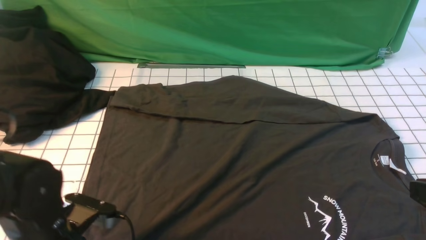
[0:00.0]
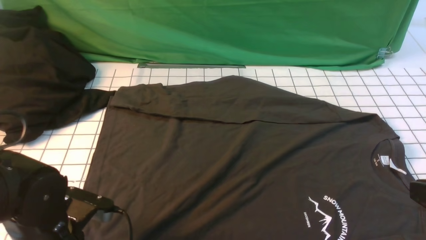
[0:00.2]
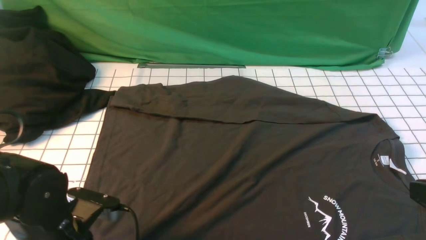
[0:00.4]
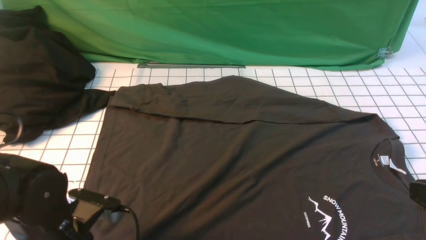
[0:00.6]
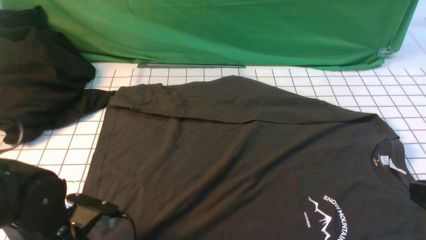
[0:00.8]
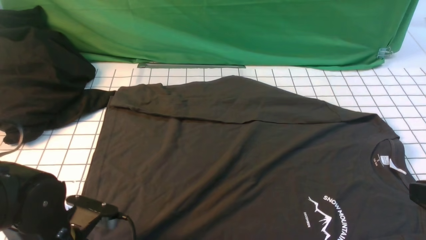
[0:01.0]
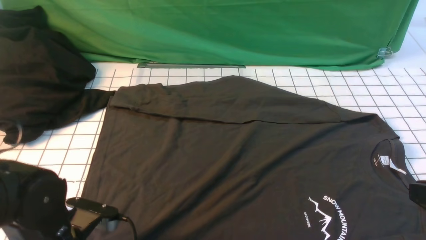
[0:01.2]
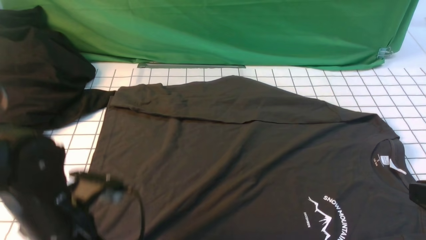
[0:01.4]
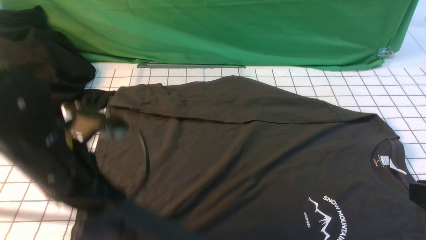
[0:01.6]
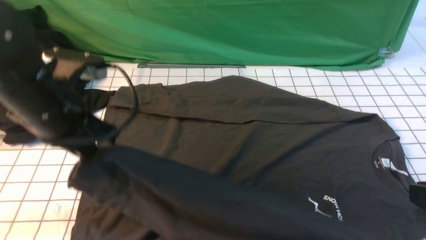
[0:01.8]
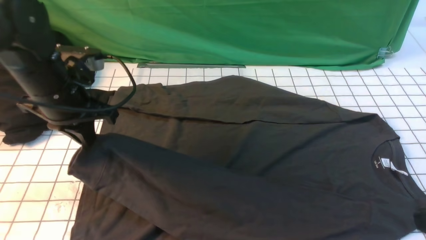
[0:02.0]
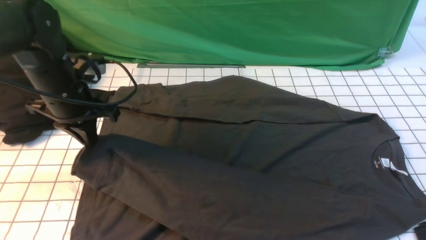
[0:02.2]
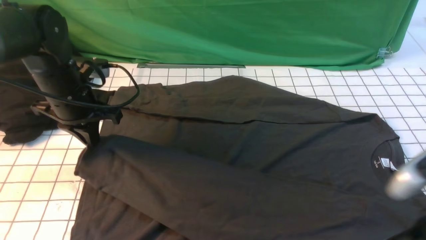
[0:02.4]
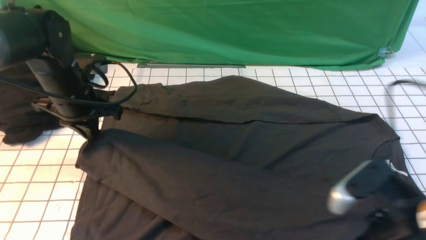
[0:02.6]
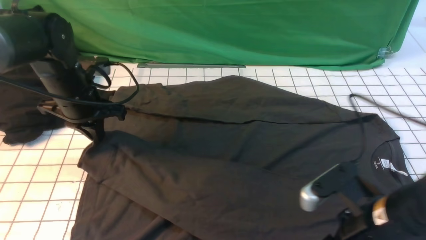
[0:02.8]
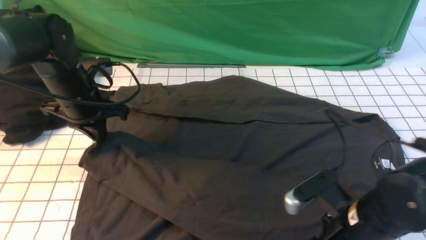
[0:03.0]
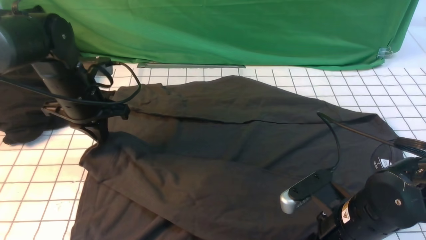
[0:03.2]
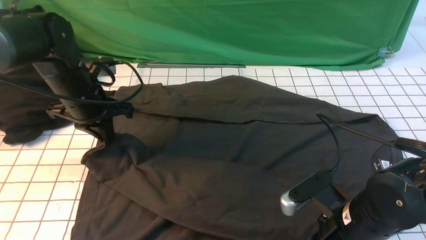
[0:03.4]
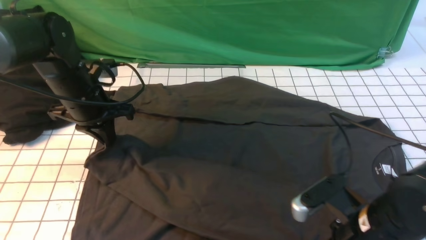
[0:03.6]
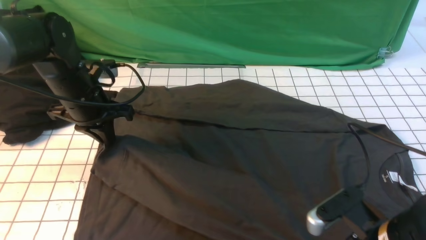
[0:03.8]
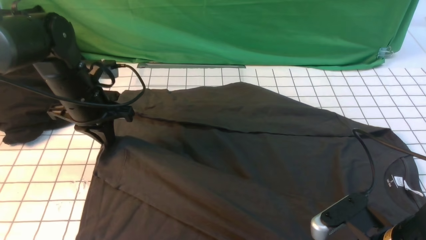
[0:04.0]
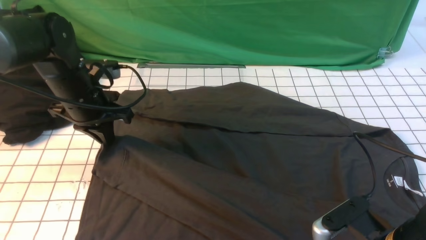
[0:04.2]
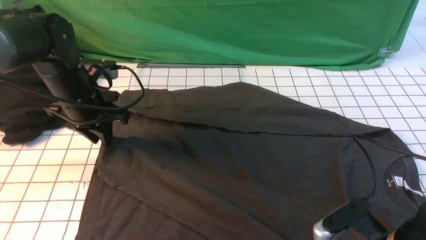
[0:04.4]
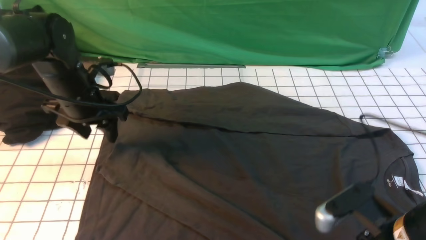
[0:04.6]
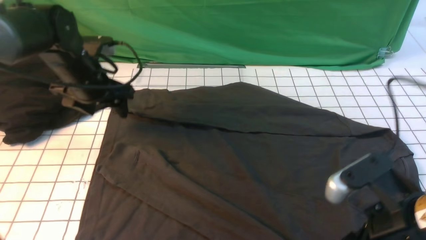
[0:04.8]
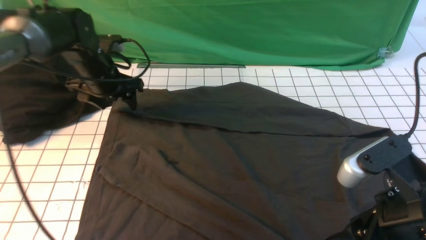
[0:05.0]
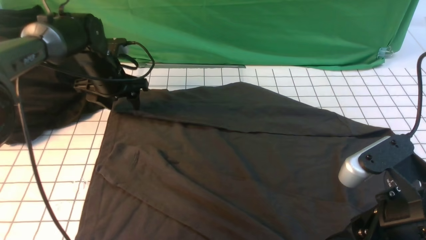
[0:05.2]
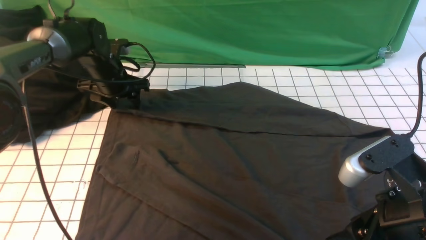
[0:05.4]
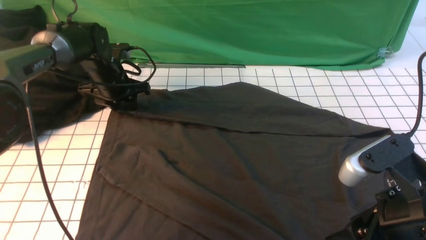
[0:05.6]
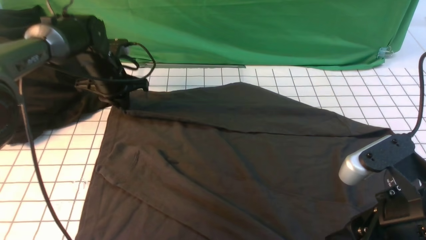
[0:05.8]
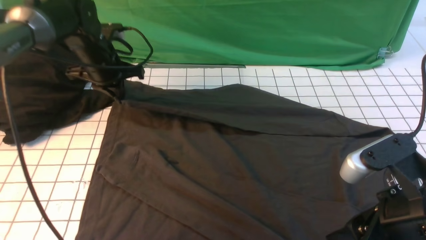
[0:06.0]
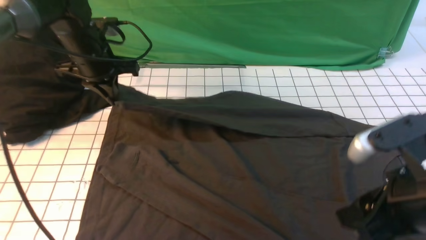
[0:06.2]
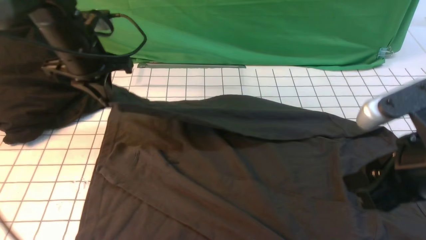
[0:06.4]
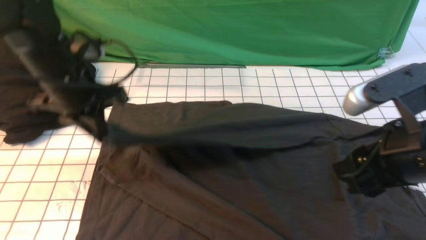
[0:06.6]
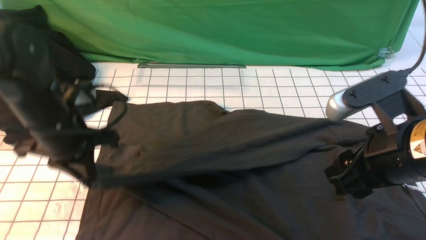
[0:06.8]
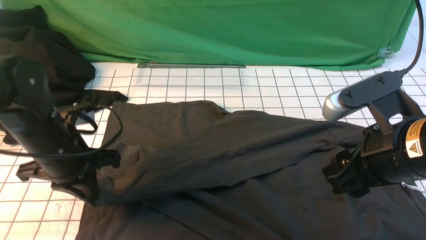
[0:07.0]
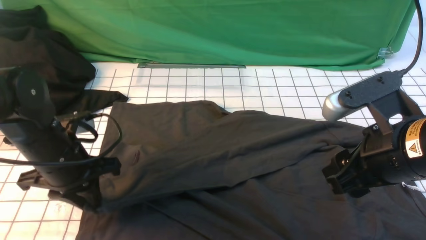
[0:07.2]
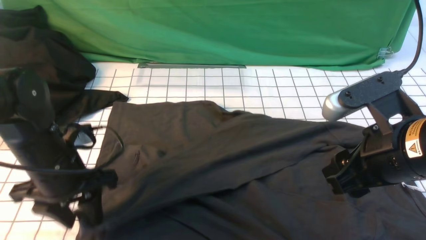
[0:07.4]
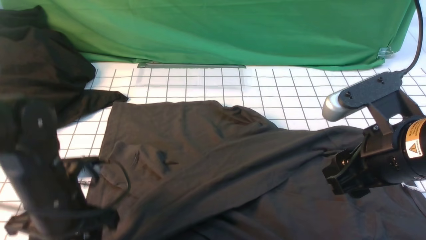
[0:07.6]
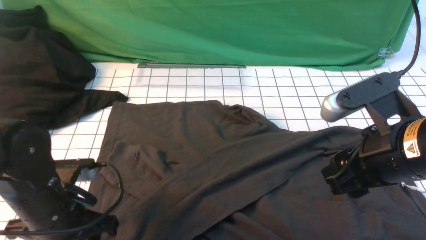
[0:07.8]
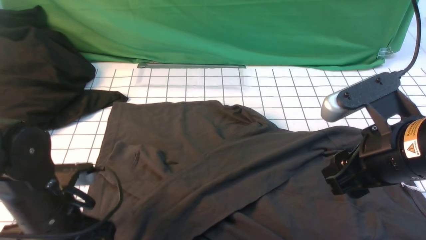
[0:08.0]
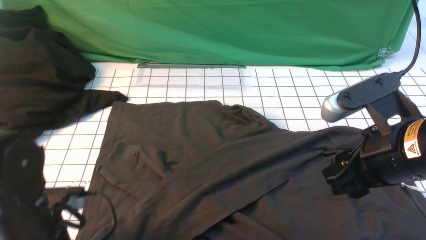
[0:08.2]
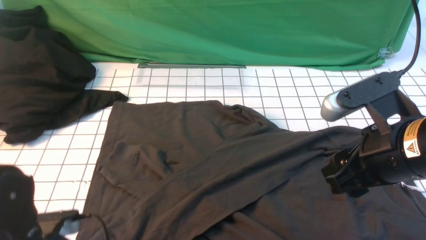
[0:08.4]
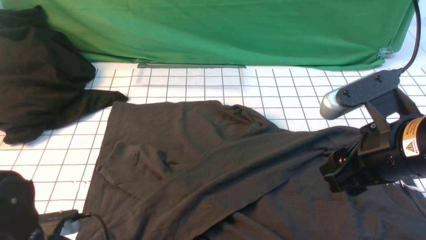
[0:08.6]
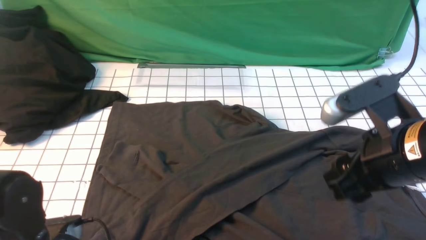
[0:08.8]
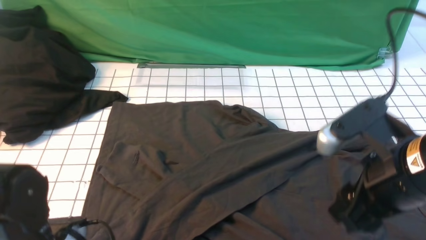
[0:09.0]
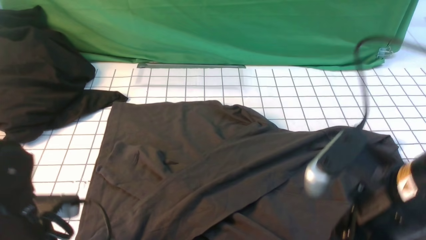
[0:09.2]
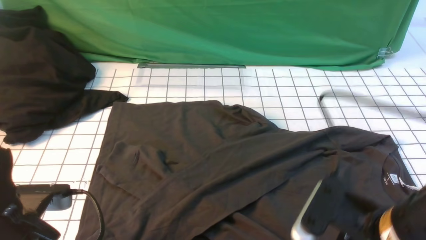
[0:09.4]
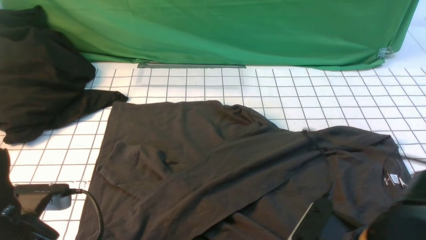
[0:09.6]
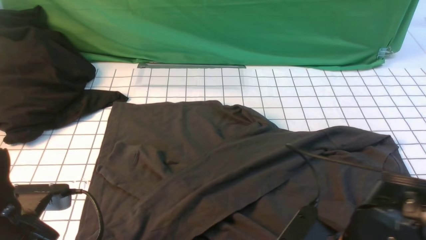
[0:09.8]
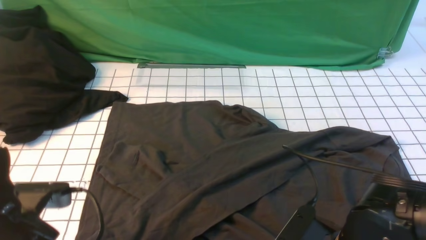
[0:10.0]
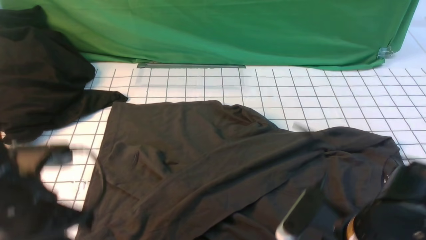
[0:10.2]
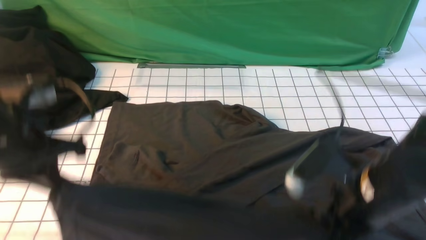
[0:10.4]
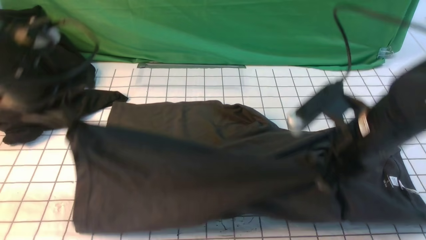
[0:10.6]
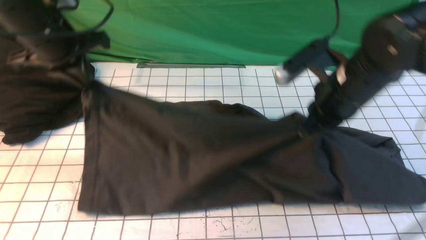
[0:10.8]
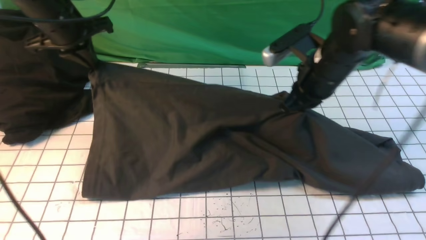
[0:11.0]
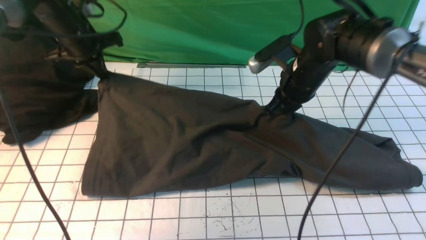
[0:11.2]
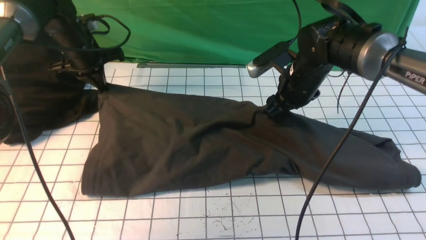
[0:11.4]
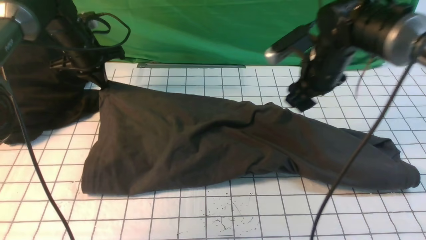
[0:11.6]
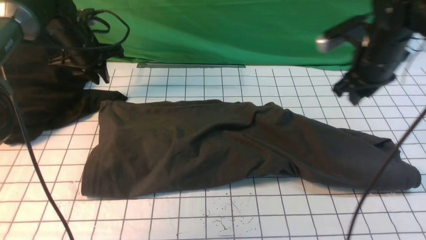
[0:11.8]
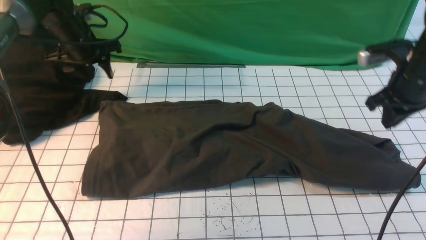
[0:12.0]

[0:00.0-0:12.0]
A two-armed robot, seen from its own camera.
Step, 1.6 to 4.4 s: use the left arm to drag and place the cuff at the centered position on the left edge of the fabric.
Step, 4.6 to 5.6 s: use the left arm to clamp the cuff farthest from it.
Step, 5.8 to 7.8 s: use the left arm to drag and drop the cuff onto the cuff closest to the left arm.
Step, 8.2 to 10.0 s: use both arms simultaneously to clamp the lower edge of the clothing fabric.
Step, 10.4 to 11.6 s: use both arms to drag the lower edge of the fabric forward and fold it over the upper edge.
0.0 to 1.6 s: The left gripper moves upward and forward, approximately 10 cm, and closes.
1.6 to 3.0 s: The right gripper is displaced downward, to the left and forward by roughly 15 cm, and opens. Meanwhile the left gripper heads forward, covering some 15 cm.
3.0 to 4.4 s: The left gripper opens up. The right gripper changes place by about 5 cm, and closes and opens again.
4.4 to 6.0 s: The left gripper shifts roughly 10 cm forward, and closes. The right gripper goes roughly 10 cm upward.
6.0 to 7.6 s: The left gripper goes approximately 25 cm backward, and opens; the right gripper moves forward, roughly 5 cm.
7.6 to 9.0 s: The left gripper heads backward, covering roughly 5 cm, and closes up.
9.0 to 10.4 s: The left gripper goes approximately 15 cm upward and forward. The right gripper closes up.
10.4 to 12.0 s: The right gripper shifts roughly 25 cm forward and to the right, and opens, then closes again. Meanwhile the left gripper goes some 25 cm forward, and opens.

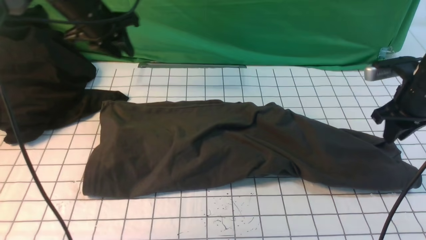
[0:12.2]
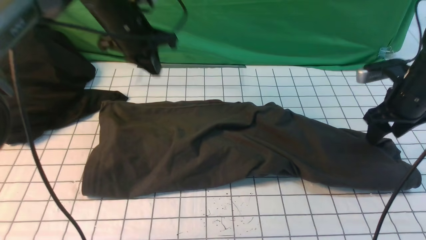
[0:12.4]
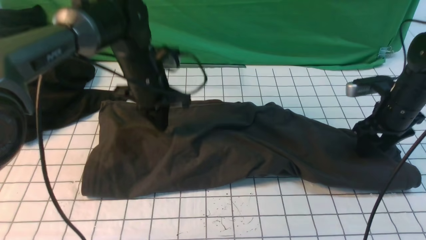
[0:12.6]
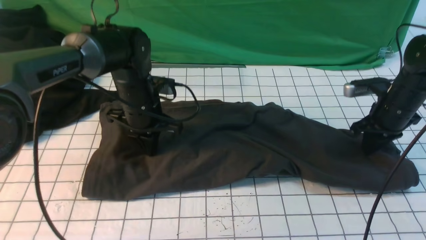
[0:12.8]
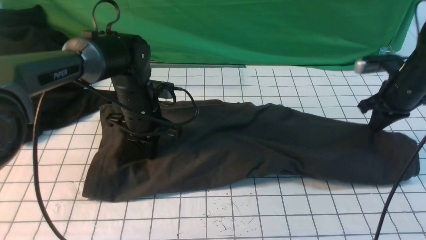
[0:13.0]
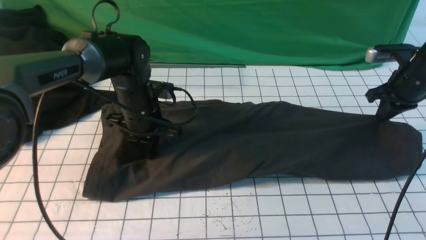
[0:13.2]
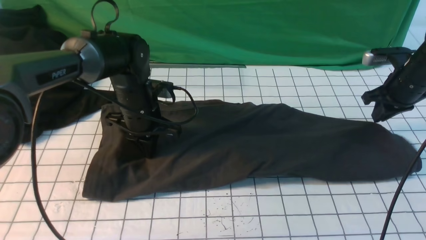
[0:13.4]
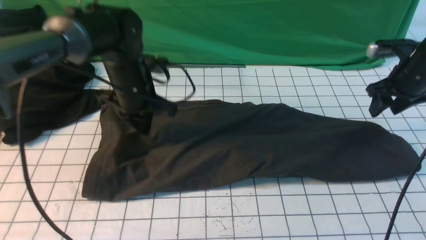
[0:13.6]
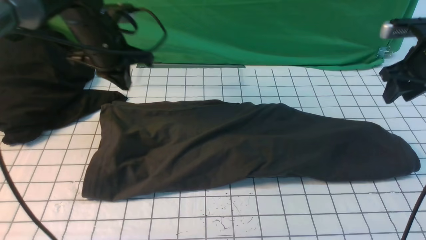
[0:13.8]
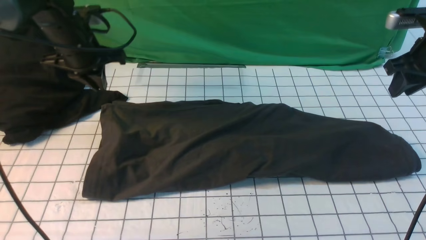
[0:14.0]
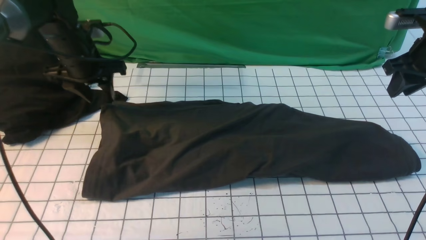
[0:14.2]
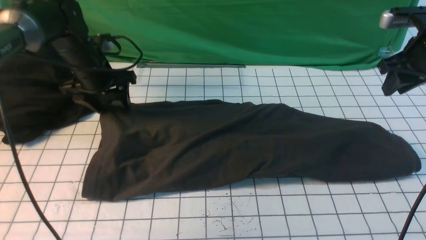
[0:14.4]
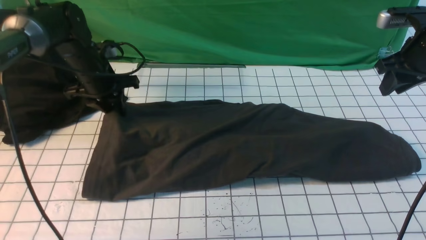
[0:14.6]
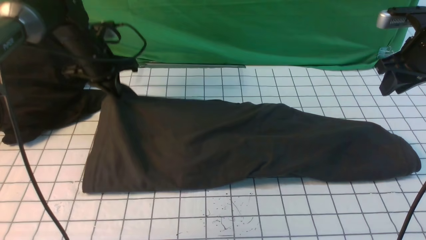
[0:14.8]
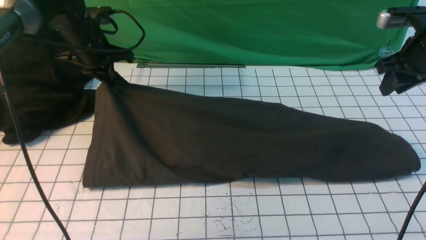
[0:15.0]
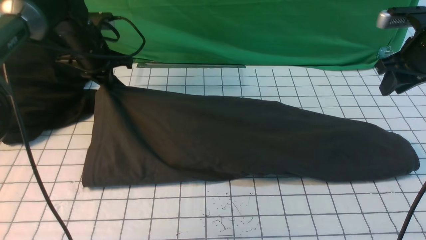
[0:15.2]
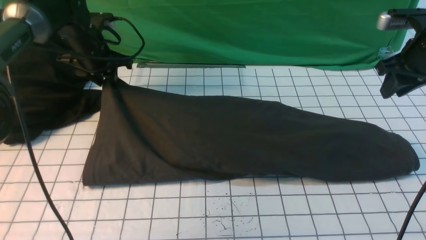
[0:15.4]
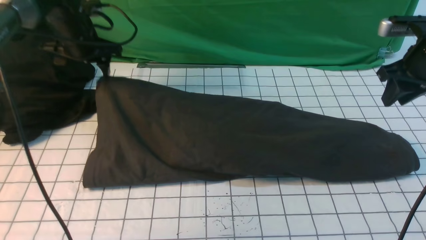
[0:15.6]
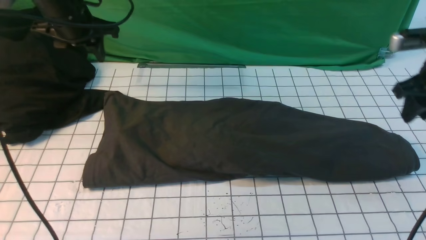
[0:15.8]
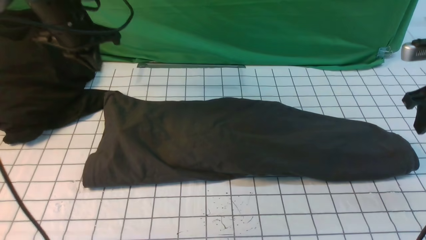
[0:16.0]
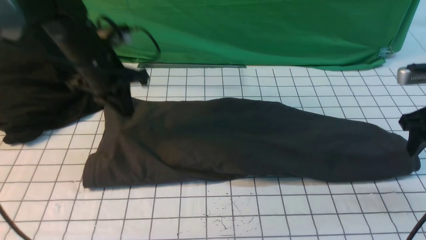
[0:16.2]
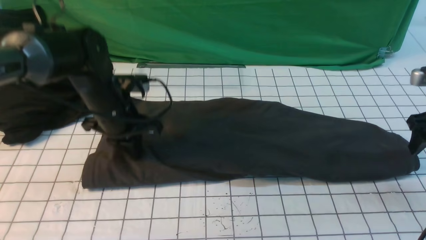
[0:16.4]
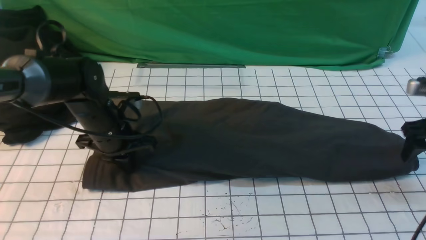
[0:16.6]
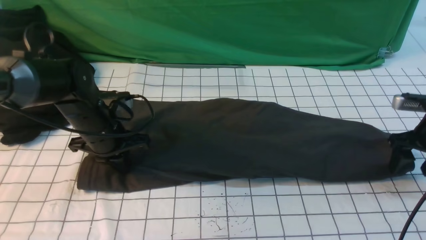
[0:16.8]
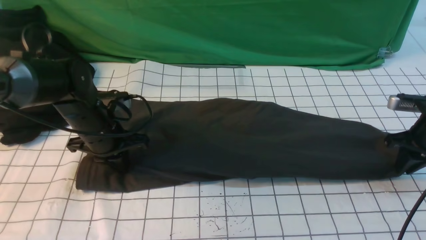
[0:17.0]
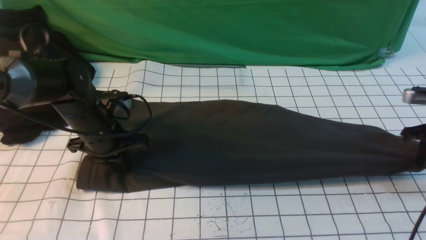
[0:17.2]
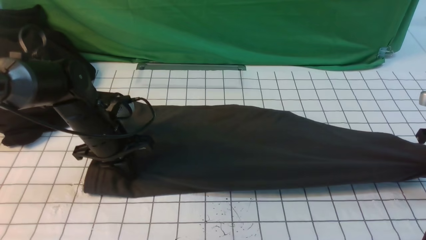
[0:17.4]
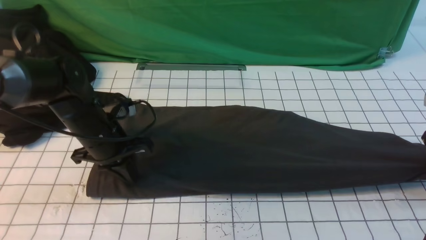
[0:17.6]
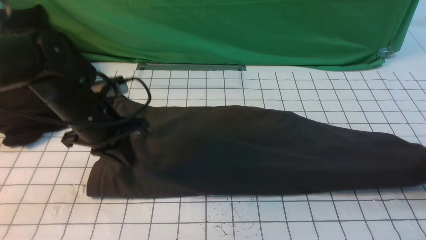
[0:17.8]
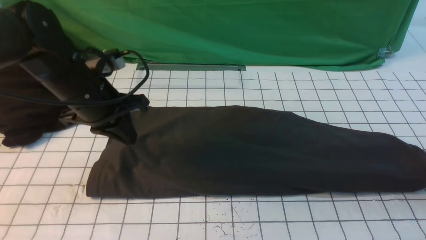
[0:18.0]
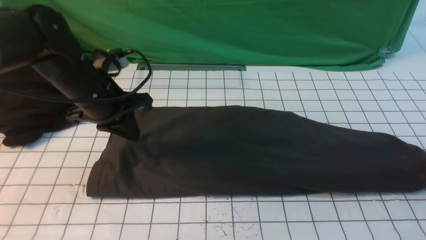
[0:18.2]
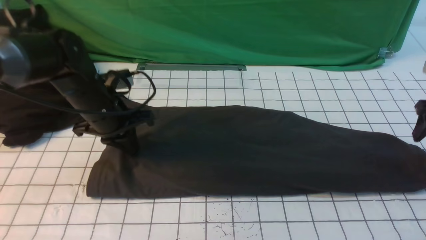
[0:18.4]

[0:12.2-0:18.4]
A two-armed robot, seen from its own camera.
12.2 to 13.8 s: The right gripper changes place by some 5 cm, and closes and opens again. Meanwhile the left gripper goes downward and returns, about 10 cm each way.
13.8 to 15.4 s: The left gripper moves forward and to the left, about 10 cm, and opens.
15.4 to 16.8 s: The right gripper moves downward, about 10 cm. Meanwhile the left gripper heads backward and downward, covering roughly 15 cm, and closes its fingers.
16.8 to 18.4 s: The right gripper ends up approximately 5 cm from where it was, and closes and opens again.
